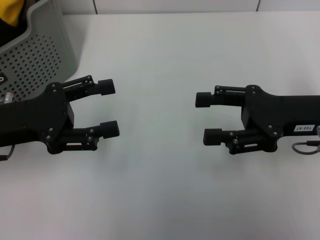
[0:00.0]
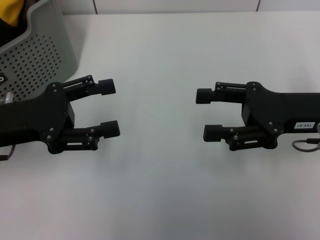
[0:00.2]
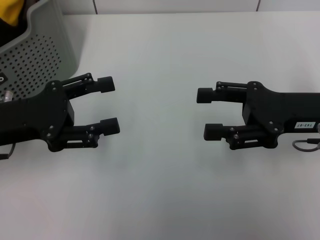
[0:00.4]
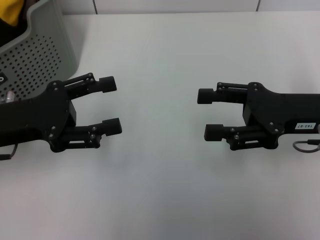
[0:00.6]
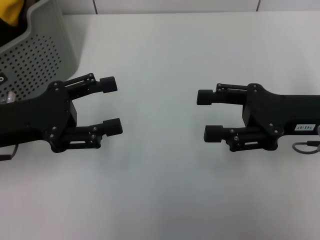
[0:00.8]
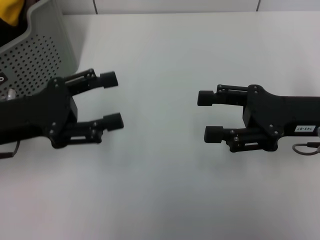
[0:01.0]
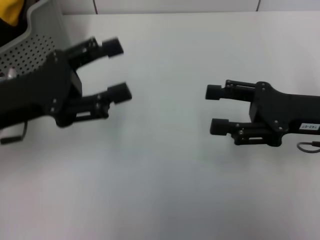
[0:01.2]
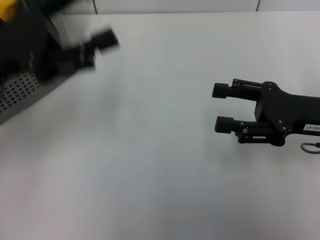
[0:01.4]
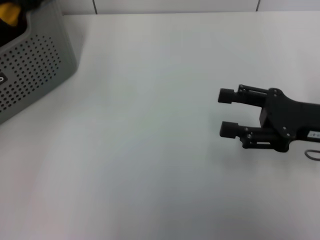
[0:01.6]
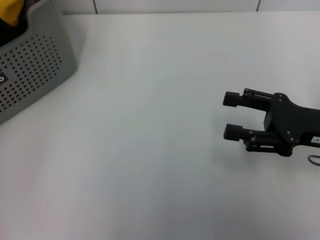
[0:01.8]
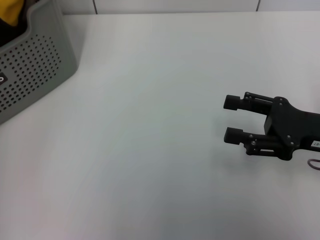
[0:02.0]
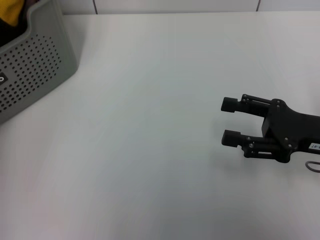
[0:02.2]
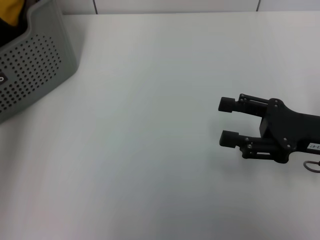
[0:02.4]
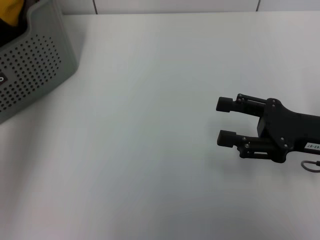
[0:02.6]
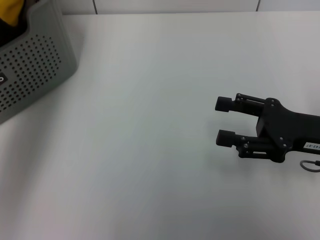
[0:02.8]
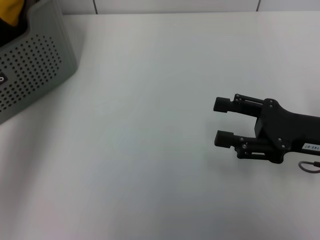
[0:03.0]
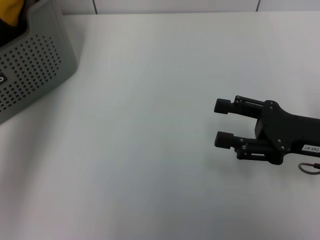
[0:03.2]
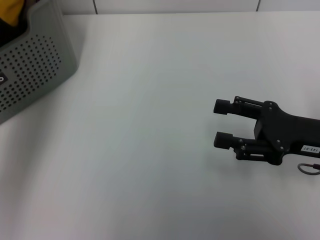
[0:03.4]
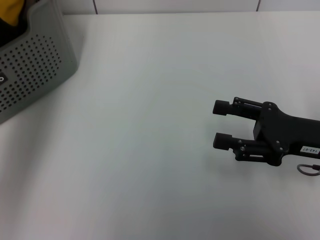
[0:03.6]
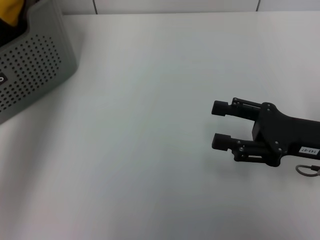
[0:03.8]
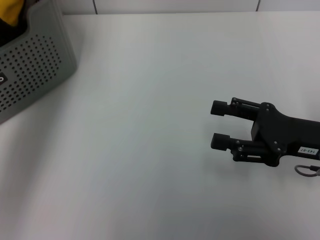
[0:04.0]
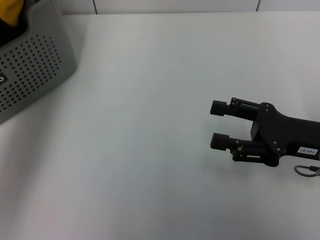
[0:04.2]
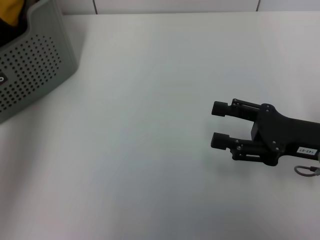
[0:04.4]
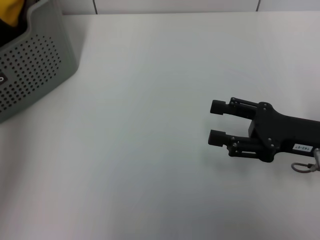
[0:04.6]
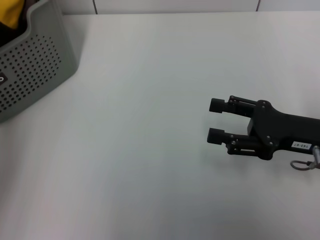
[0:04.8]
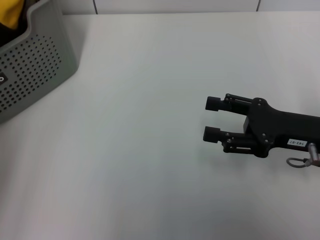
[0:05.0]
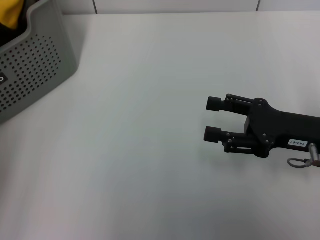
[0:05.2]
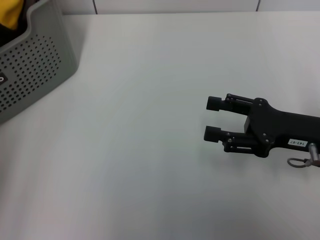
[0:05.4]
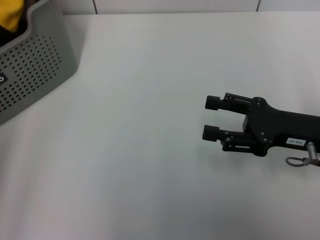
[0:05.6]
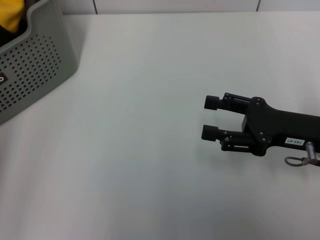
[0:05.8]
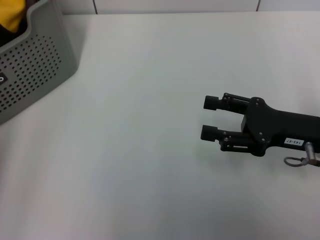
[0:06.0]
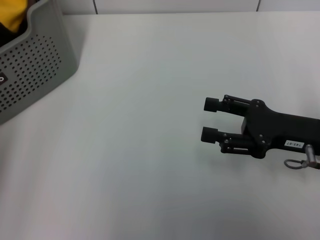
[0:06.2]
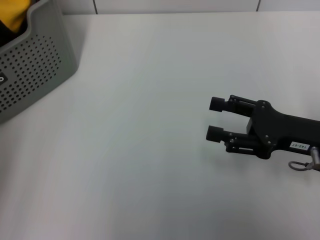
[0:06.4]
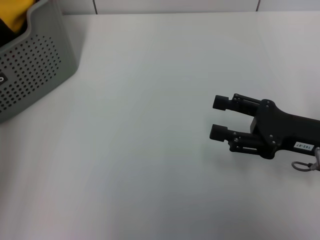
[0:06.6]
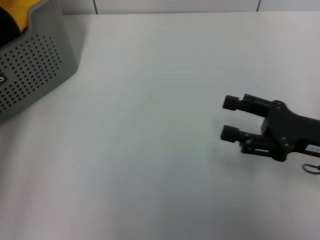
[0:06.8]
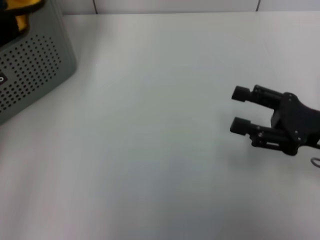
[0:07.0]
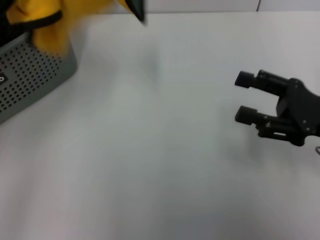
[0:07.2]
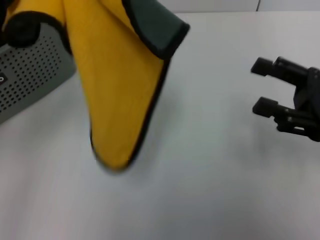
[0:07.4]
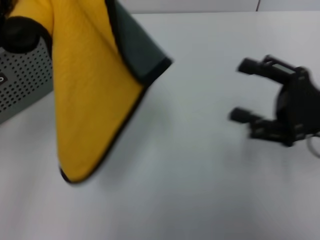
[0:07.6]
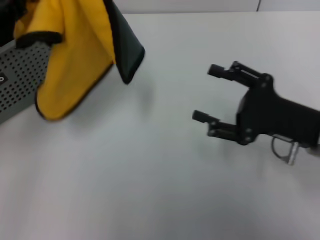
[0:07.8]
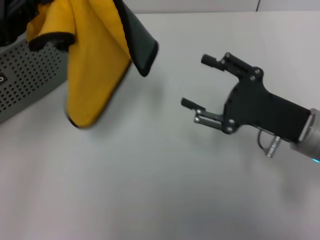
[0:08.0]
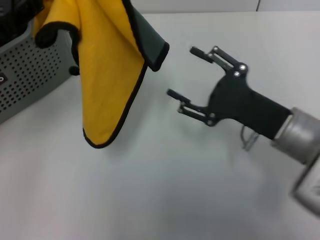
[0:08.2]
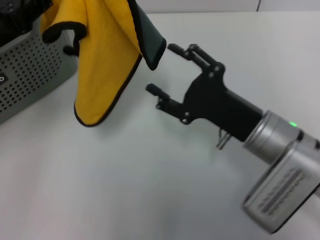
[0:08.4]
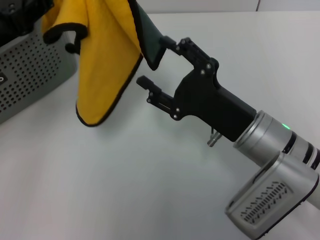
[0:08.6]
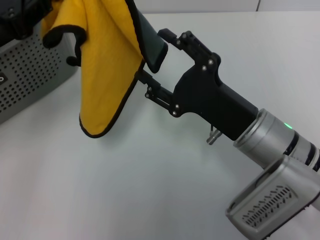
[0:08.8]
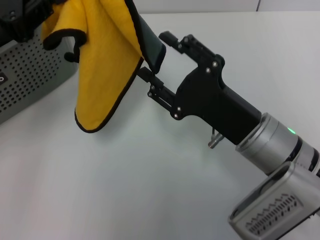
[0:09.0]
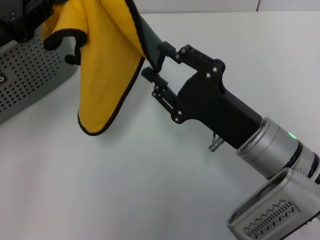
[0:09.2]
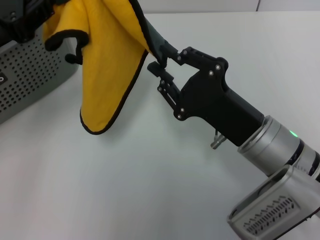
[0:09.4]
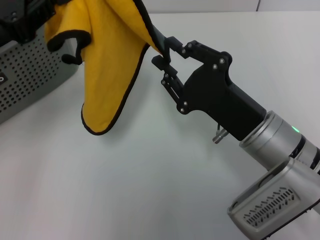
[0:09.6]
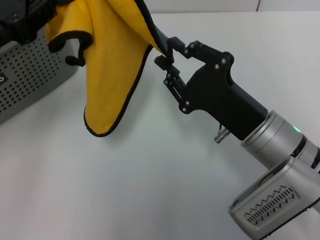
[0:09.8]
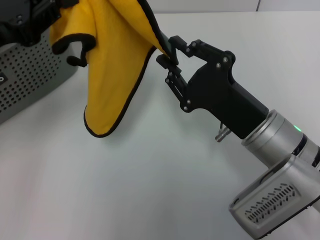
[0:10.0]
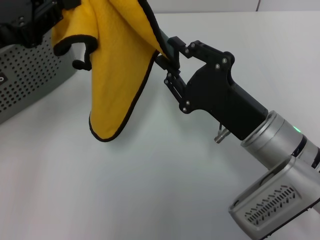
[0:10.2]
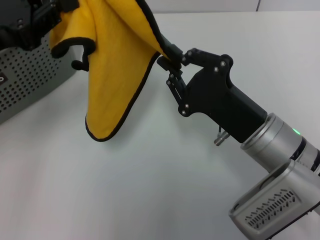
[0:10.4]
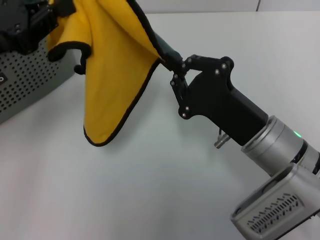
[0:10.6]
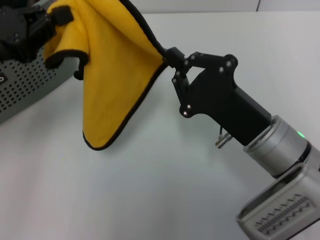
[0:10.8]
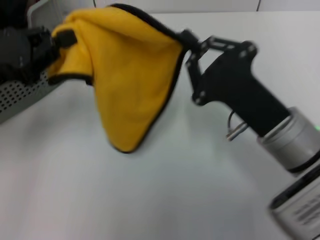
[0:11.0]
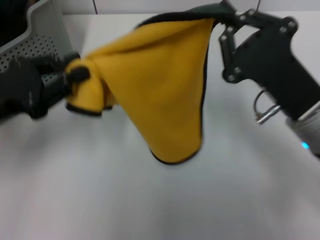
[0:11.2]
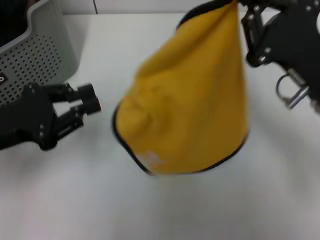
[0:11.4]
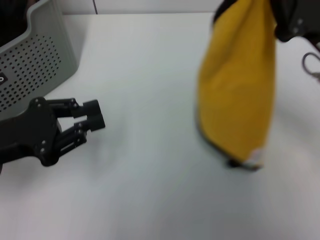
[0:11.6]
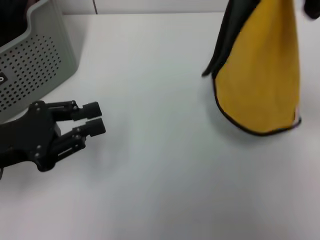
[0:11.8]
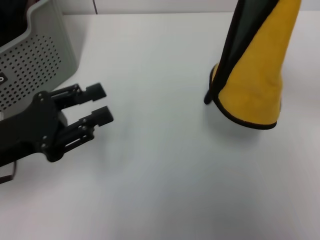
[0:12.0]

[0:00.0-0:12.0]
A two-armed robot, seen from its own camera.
Task of the whole recording: pick up the towel from the storage box and lay it flat on the table.
Step, 0:00.0 to 0:06.2: Pick up a towel with the left gripper.
Step, 0:06.6 to 0:10.6: Spread the towel flat with the left gripper.
0:00.0 to 0:01.6: The left gripper travels upward by approximately 10 cm.
0:01.6 to 0:03.0: The left gripper shifts about 5 cm forward.
0:03.0 to 0:04.4: The grippers make only small movements.
0:04.4 to 0:06.0: The left gripper goes approximately 10 cm to the left.
0:06.0 to 0:07.6: The left gripper moves backward, roughly 5 cm, and closes its fingers.
0:07.6 to 0:09.0: The left gripper shifts by some 5 cm. The right gripper is displaced to the left by some 15 cm.
0:09.0 to 0:10.4: The right gripper closes up.
0:10.4 to 0:12.0: The right gripper is displaced to the right, upward and forward by approximately 20 cm. The left gripper travels downward and backward by about 10 cm.

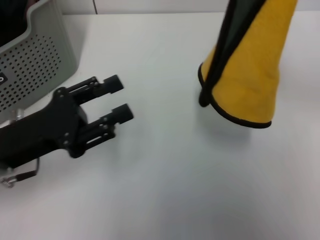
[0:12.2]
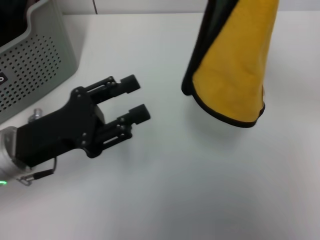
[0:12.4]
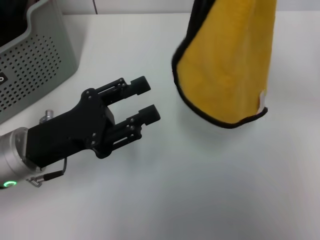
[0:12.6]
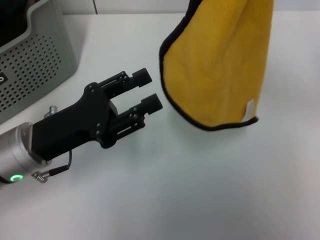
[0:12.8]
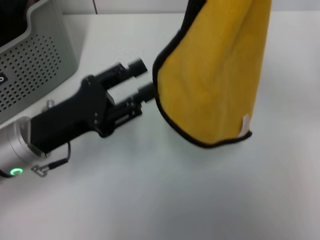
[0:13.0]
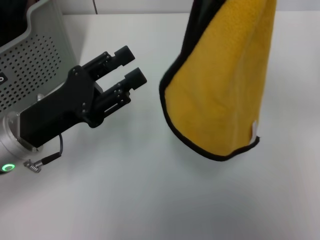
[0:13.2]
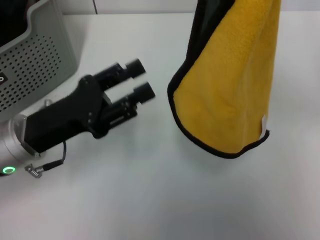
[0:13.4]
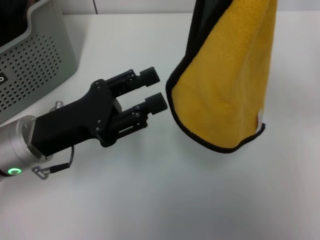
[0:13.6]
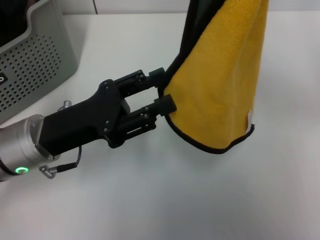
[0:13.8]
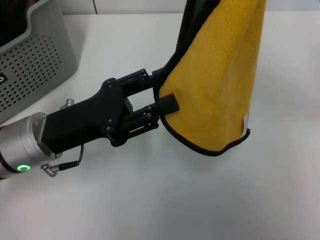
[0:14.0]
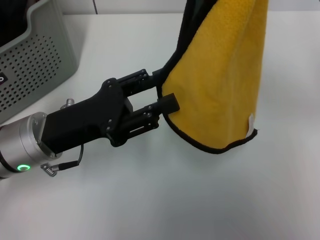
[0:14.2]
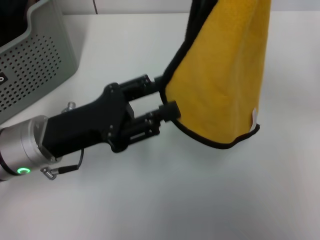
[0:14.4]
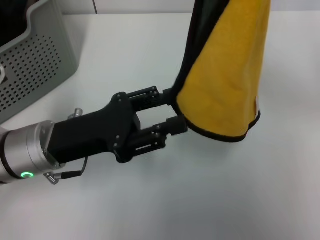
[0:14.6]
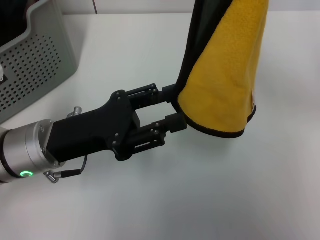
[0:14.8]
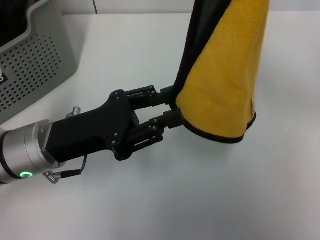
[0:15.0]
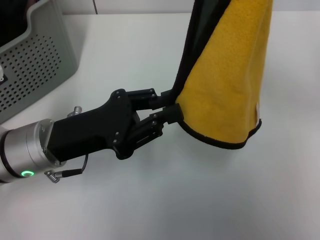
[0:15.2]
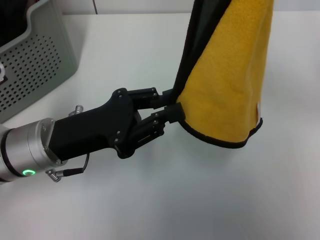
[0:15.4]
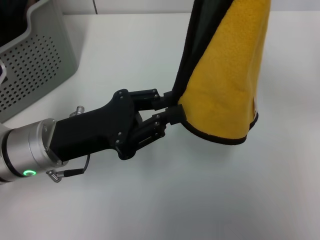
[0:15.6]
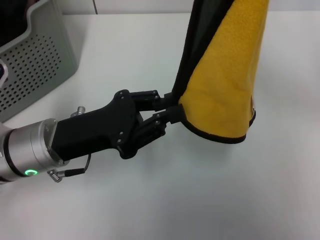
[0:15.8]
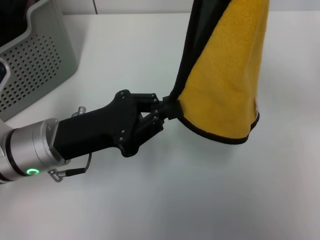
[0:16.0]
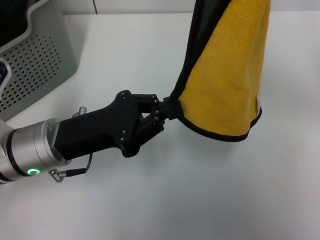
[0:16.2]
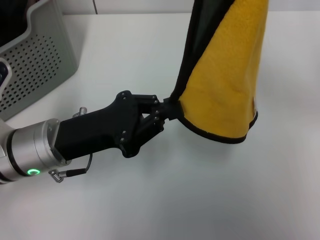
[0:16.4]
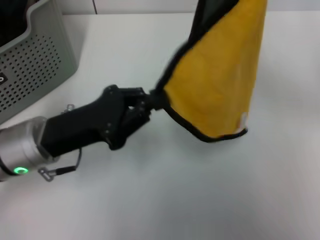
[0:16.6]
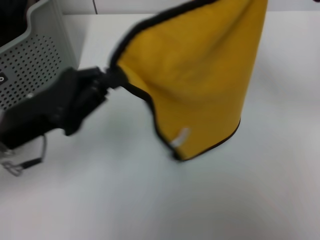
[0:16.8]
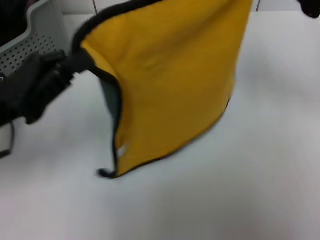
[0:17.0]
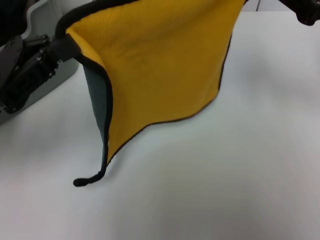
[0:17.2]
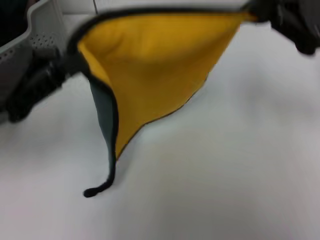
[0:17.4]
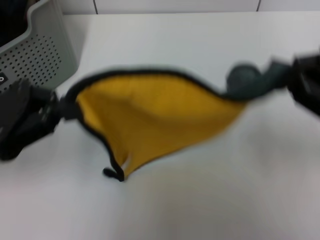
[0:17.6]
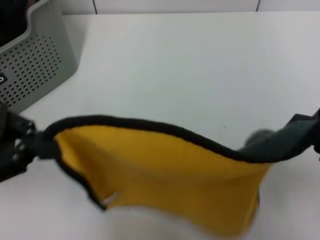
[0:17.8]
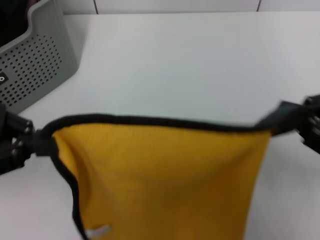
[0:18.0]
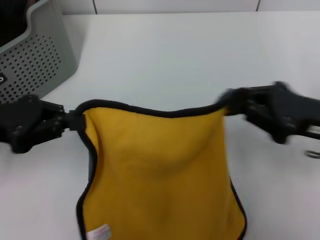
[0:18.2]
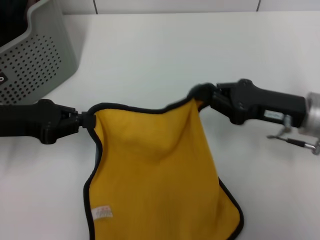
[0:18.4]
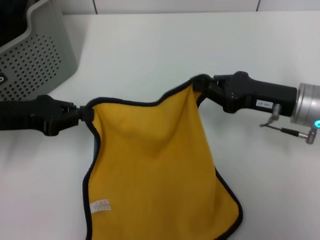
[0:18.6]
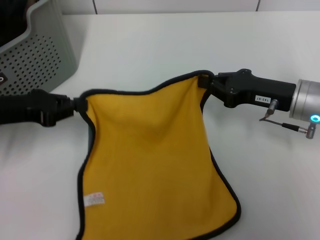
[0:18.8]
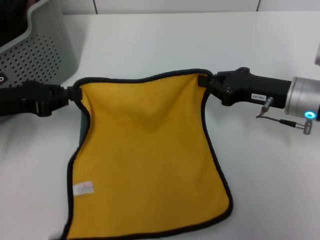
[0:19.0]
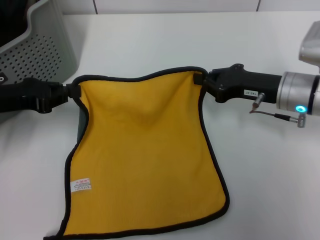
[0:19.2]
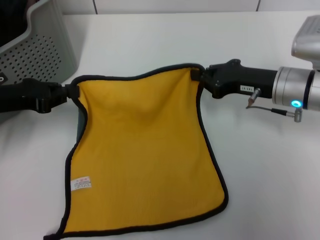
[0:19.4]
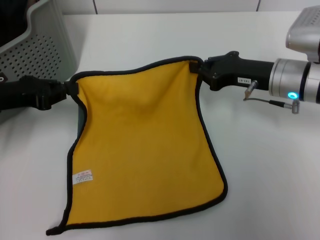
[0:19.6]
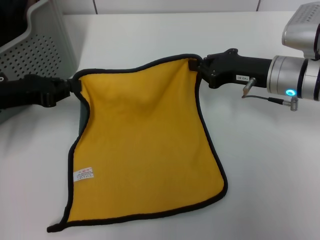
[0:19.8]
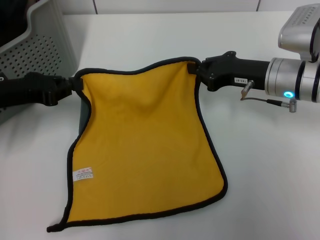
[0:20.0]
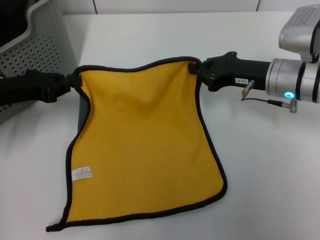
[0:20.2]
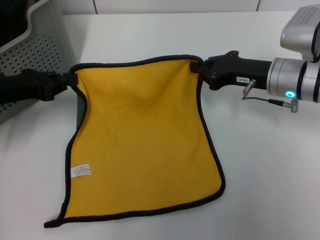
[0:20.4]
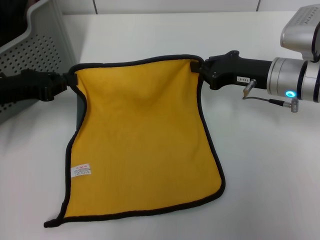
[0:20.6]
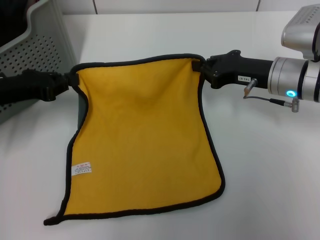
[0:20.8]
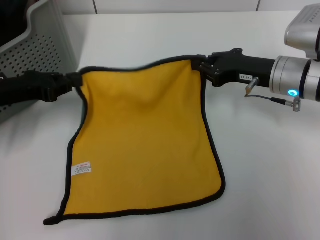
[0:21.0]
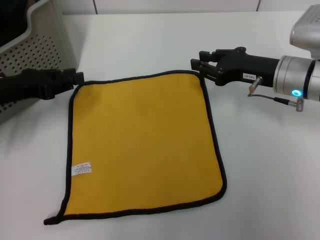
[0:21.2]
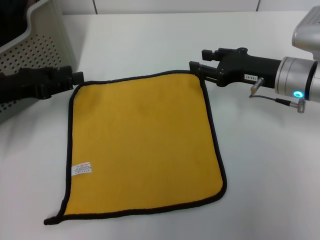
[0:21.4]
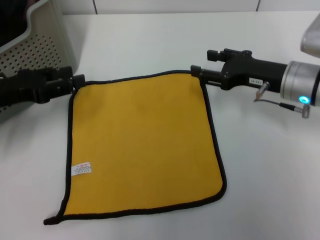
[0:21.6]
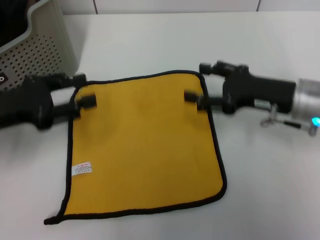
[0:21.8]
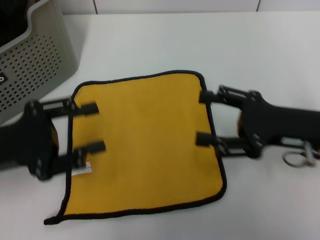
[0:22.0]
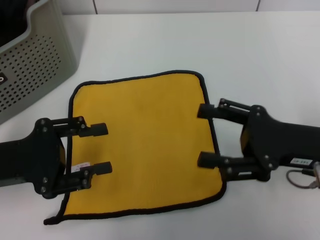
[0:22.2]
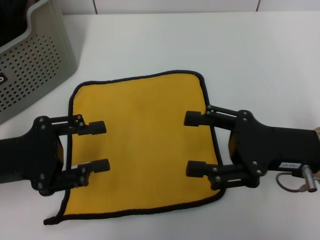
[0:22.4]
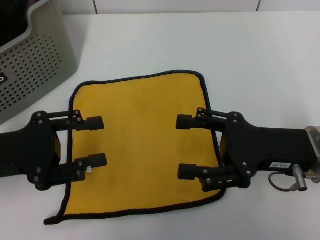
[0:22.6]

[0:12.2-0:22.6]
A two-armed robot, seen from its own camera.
Task of the whole recording: pick up the towel from the storage box and lay it flat on the table.
Step, 0:12.2 to 0:21.0: Spread the towel flat with the right gripper.
0:13.6 to 0:15.2: There are only small adjustments of the grippers.
0:15.2 to 0:16.6: The left gripper closes its fingers.
0:16.6 to 0:18.2: The left gripper is displaced to the left and upward by some 10 cm; the right gripper travels downward and backward by about 10 cm.
0:18.2 to 0:19.6: The left gripper heads forward, covering about 5 cm, while the right gripper moves forward and to the left, approximately 15 cm.
0:19.6 to 0:21.2: The grippers stay close to where they were, moving slightly.
0:21.2 to 0:22.6: Both grippers travel together backward, roughly 10 cm. The left gripper opens. The right gripper opens its fingers.
